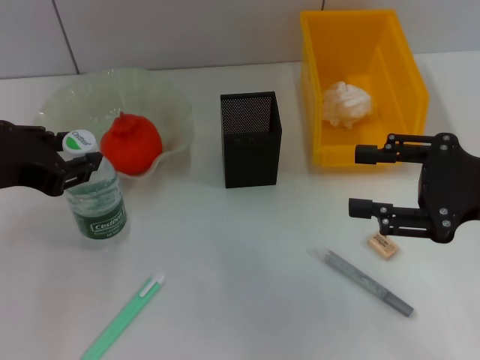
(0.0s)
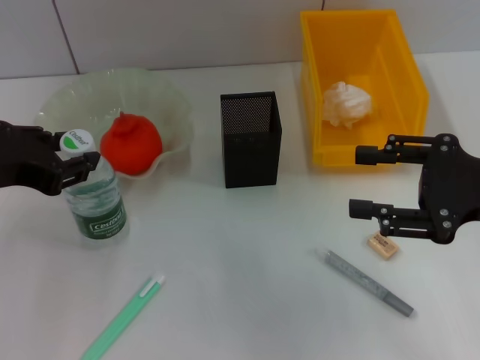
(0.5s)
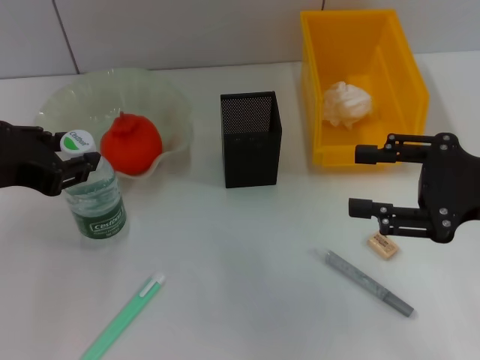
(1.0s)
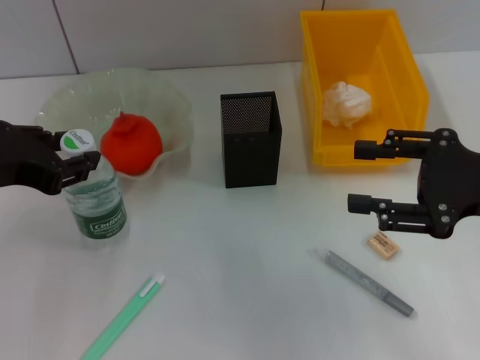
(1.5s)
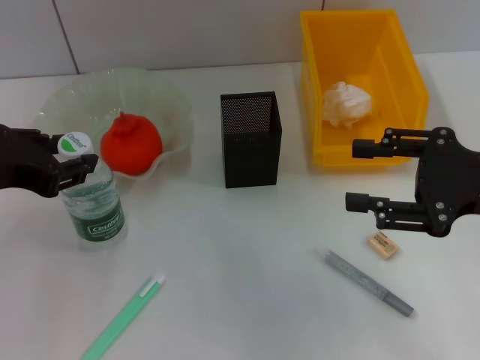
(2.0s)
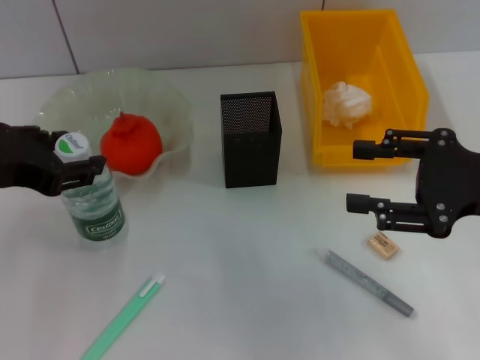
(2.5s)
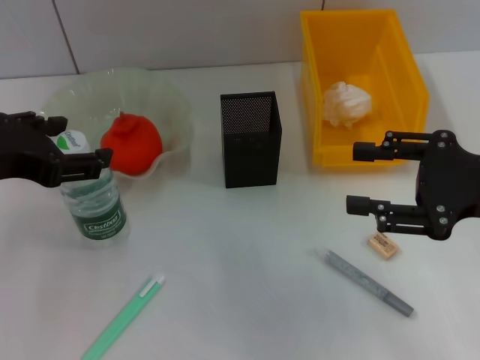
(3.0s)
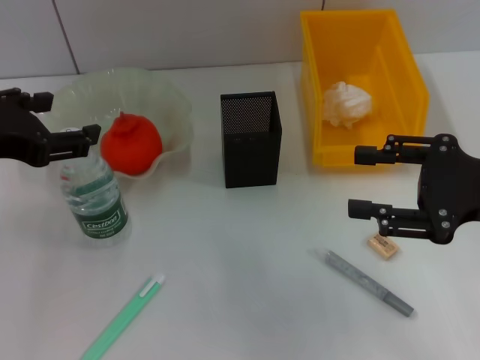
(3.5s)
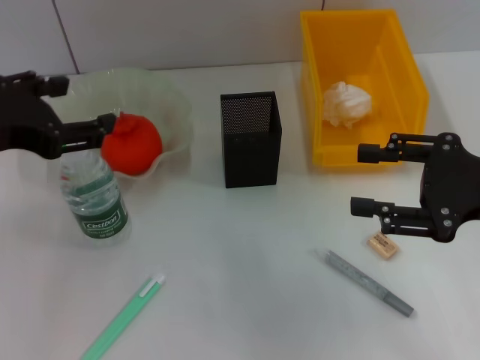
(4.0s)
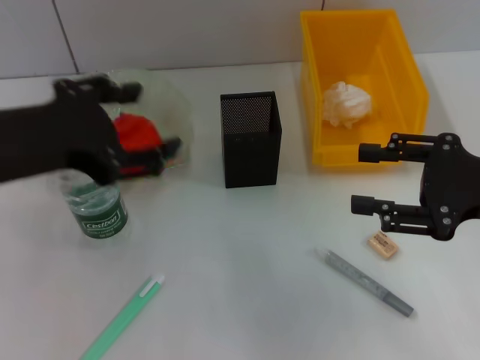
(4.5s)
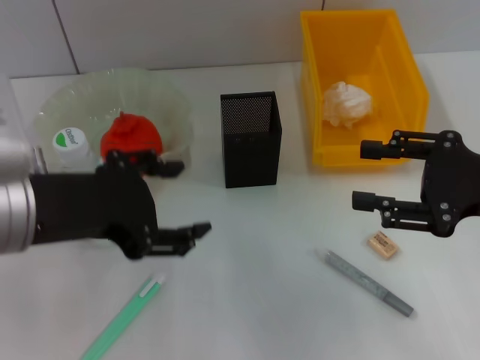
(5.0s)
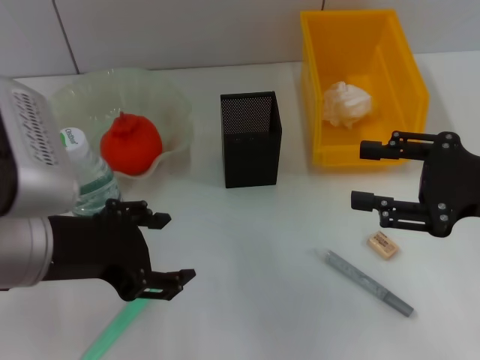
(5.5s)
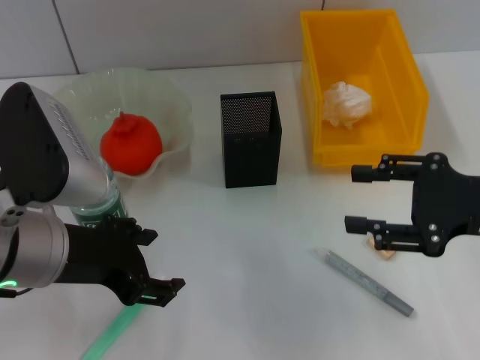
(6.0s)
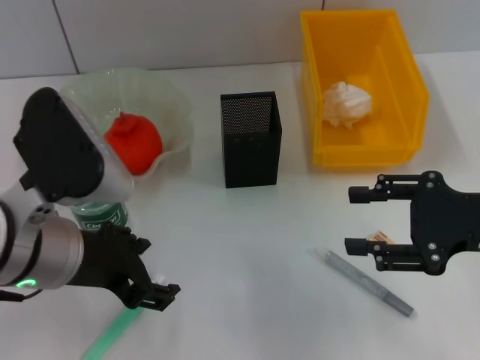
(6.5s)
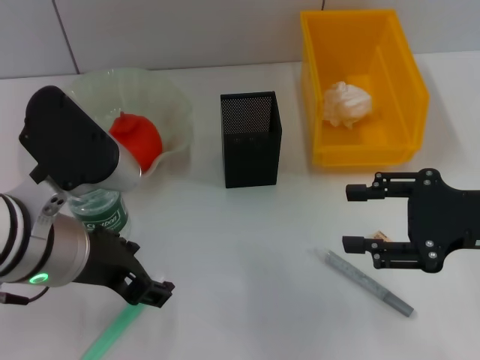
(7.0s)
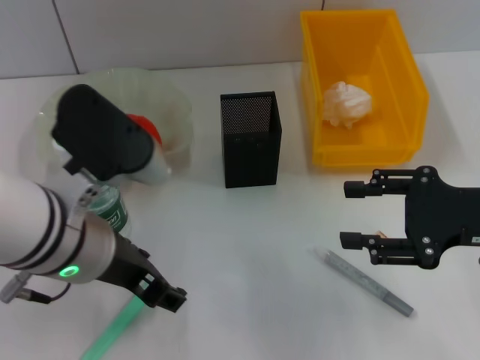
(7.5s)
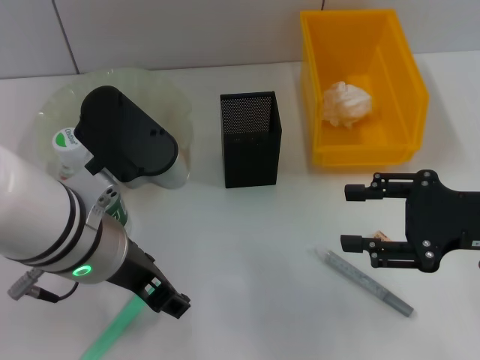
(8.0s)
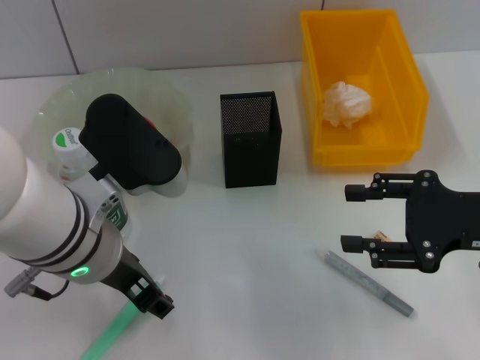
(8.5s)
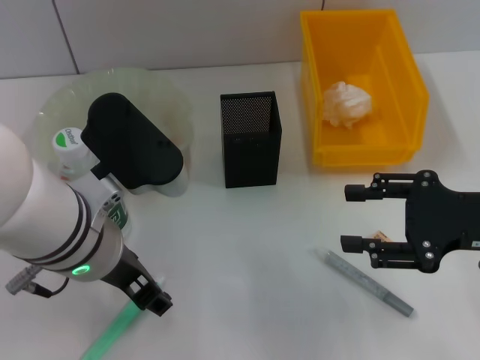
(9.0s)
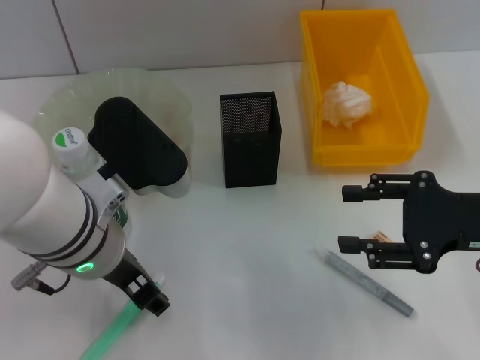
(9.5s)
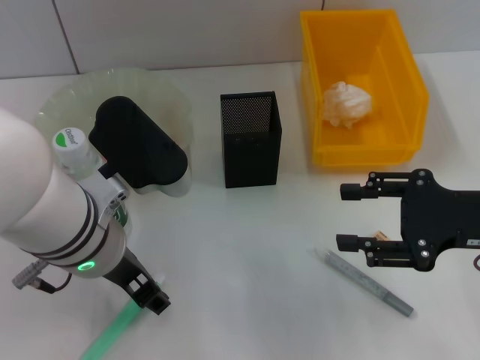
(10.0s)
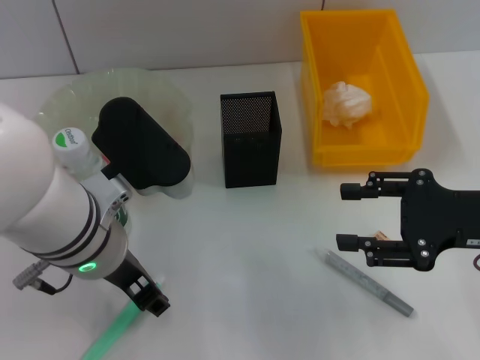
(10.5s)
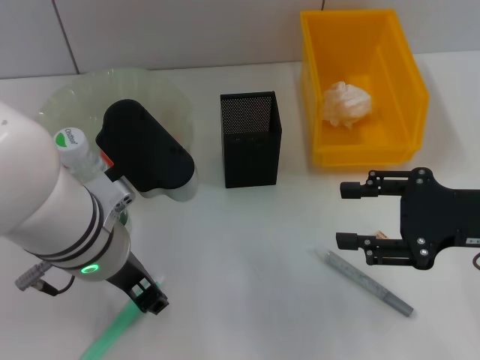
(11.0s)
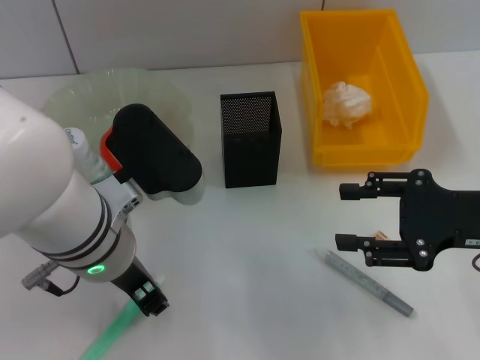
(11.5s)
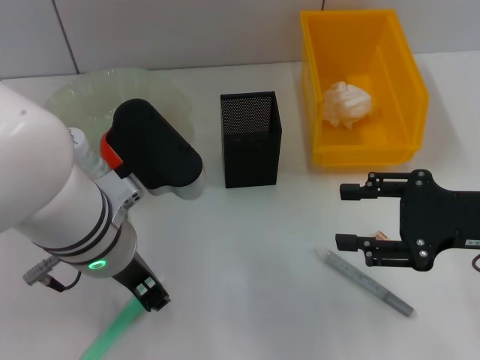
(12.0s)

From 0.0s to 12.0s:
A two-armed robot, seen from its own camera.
Step, from 0.0s to 2.5s: Place the water bottle on the table with the left hand.
From 0.0s to 2.0s: Both grippers stay about where they are.
From 2.0s to 4.0s: The left gripper opens.
From 4.0s to 6.0s: The left gripper goes some 10 cm to the right and downward.
From 6.0s to 8.0s: The left gripper goes roughly 5 cm to the right.
From 8.0s to 10.0s: The grippers stay close to where they were, moving slightly.
From 10.0s to 12.0s: The left gripper closes.

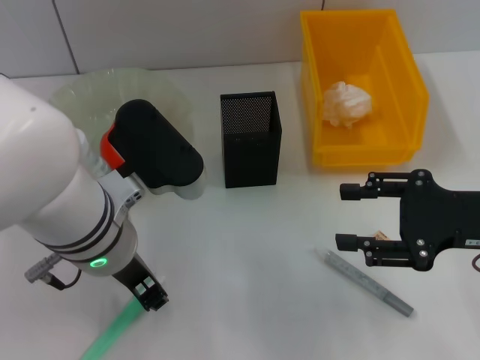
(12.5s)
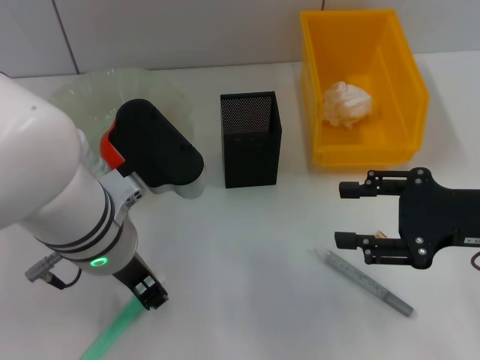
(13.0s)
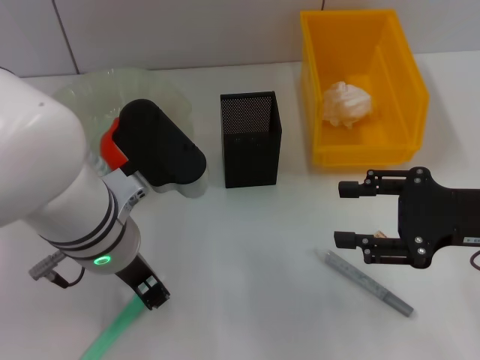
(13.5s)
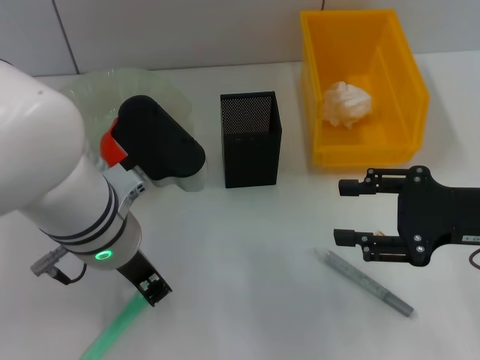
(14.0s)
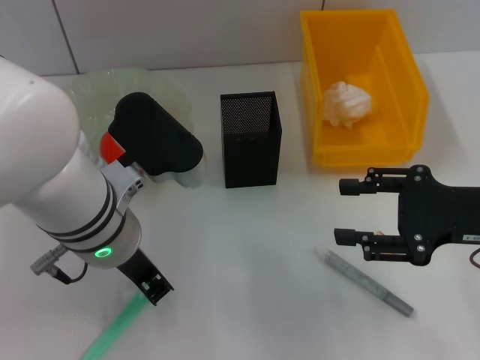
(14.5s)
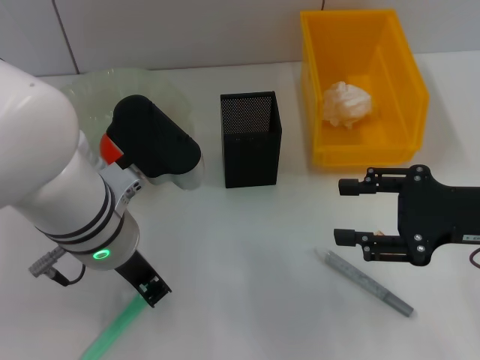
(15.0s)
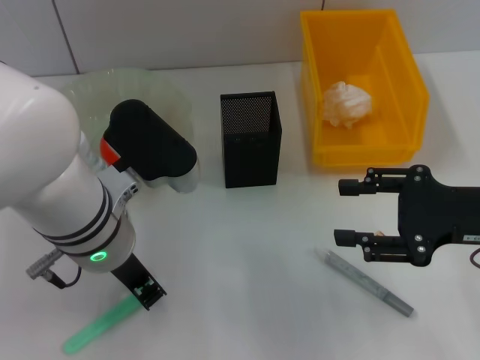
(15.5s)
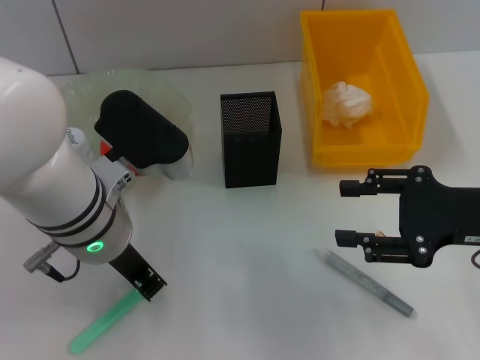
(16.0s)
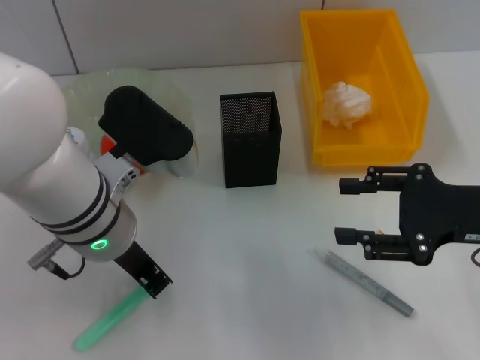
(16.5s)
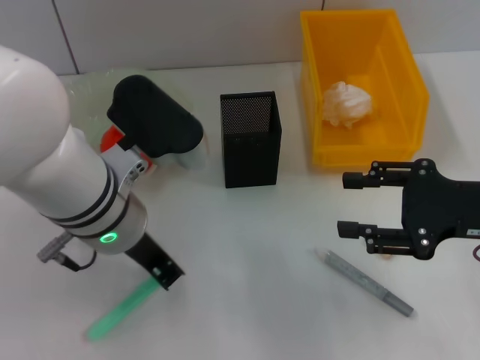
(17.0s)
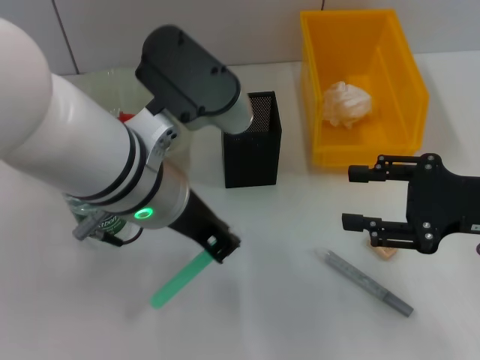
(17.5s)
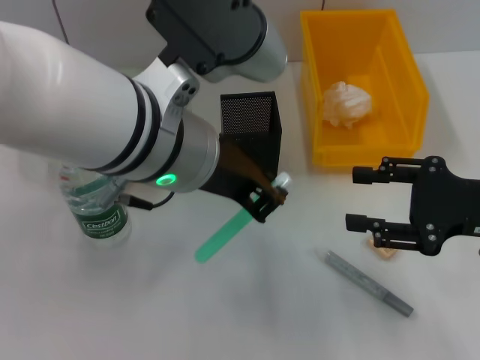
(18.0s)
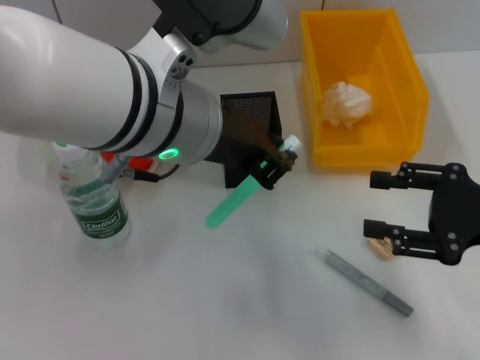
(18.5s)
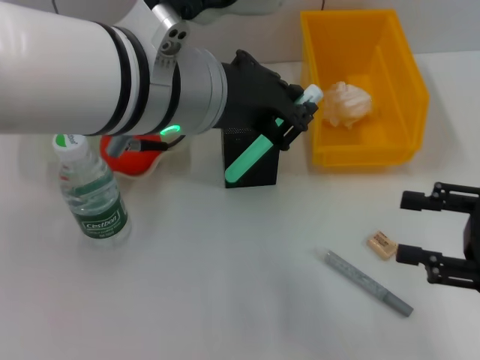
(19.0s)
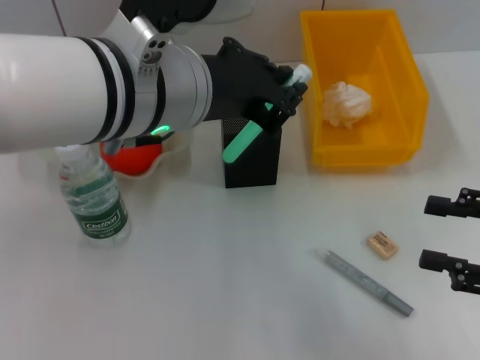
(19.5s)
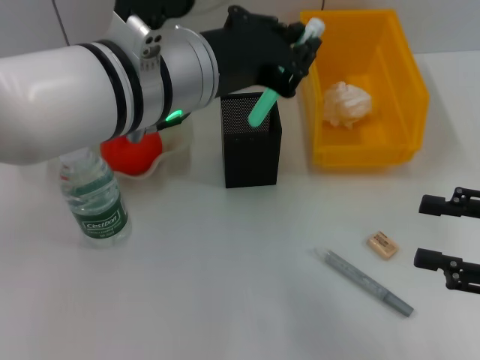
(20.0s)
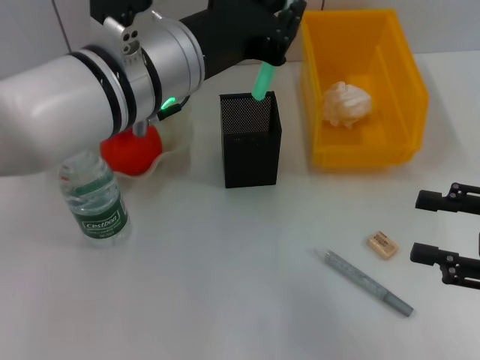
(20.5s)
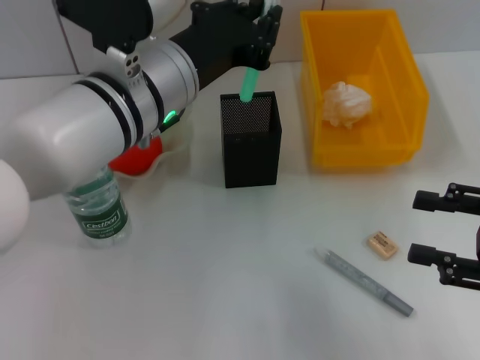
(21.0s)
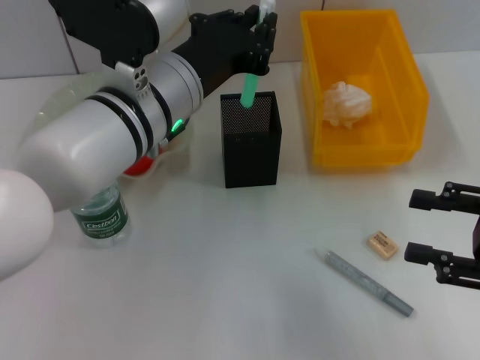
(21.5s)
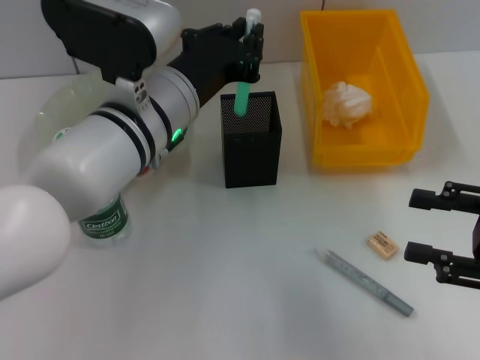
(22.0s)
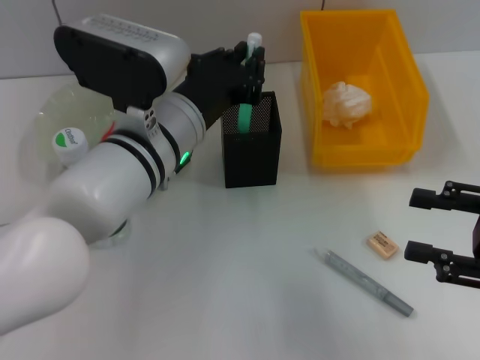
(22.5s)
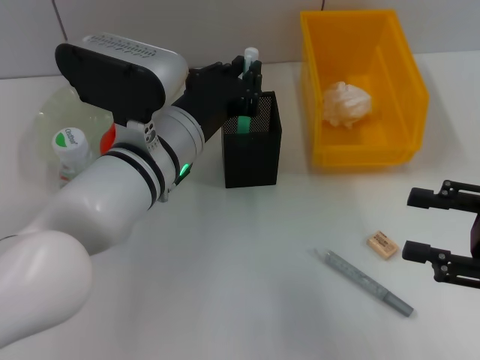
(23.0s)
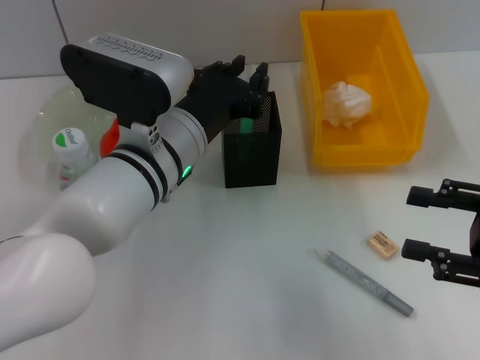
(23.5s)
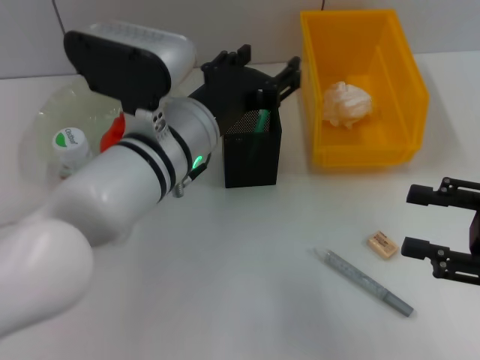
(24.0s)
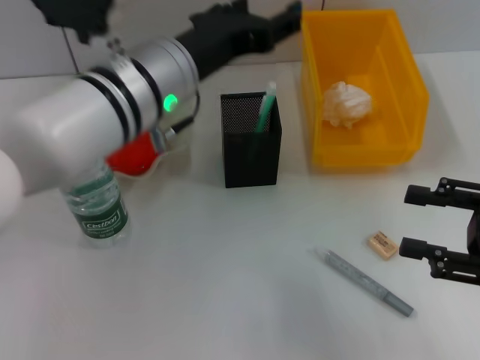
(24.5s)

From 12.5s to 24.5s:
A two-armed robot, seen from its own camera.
Step, from 12.5s to 15.5s: Grab the blue utility knife with the left hand.
Step, from 16.0s to 23.5s: Place the blue utility knife into the pen holder with the left hand.
From 12.5s to 14.5s: The left gripper closes its fingers.
From 14.5s to 16.5s: The two grippers keep their place.
From 16.5s to 18.5s: The left gripper is displaced upward and to the right by about 10 cm.
From 20.5s to 22.5s: The left gripper is displaced downward by roughly 10 cm.
From 22.5s to 24.5s: The left gripper travels upward by approximately 5 cm, and opens its fingers.

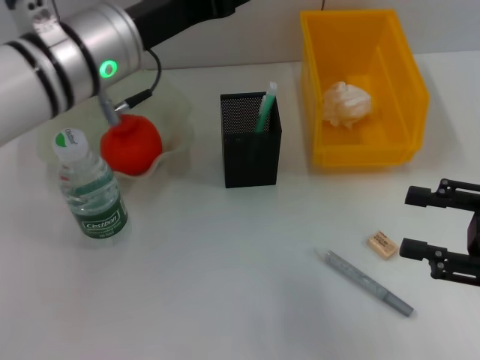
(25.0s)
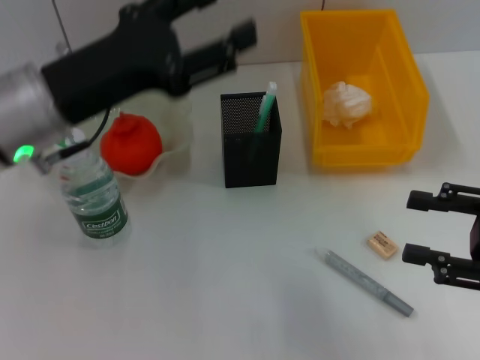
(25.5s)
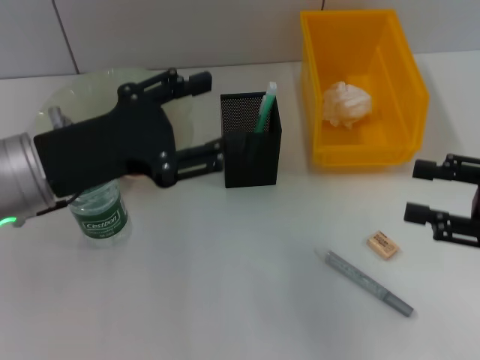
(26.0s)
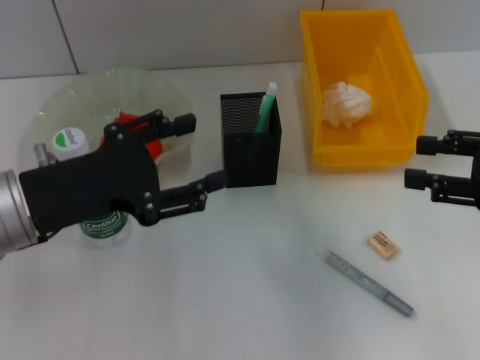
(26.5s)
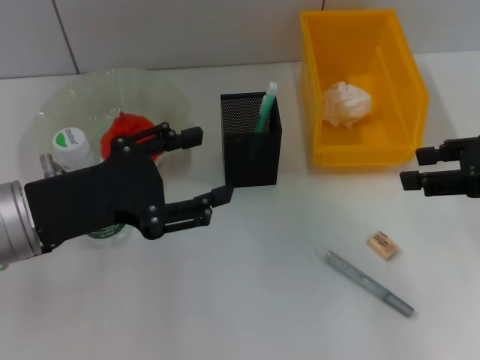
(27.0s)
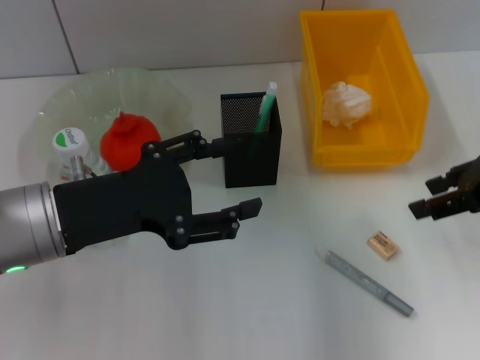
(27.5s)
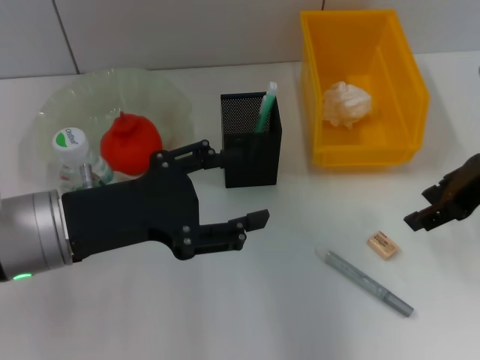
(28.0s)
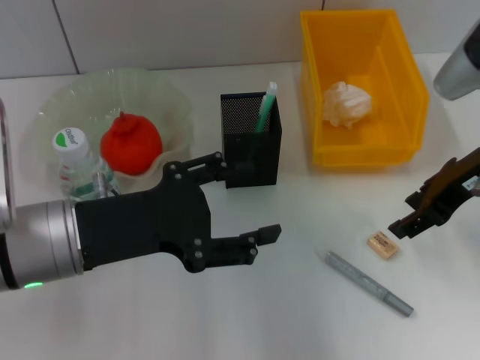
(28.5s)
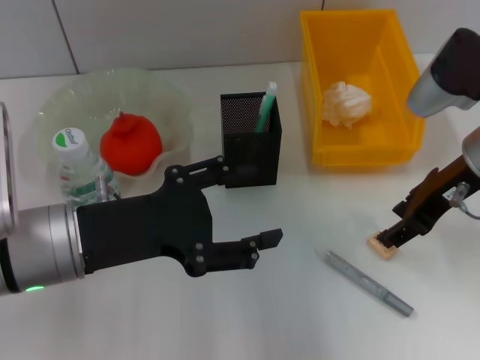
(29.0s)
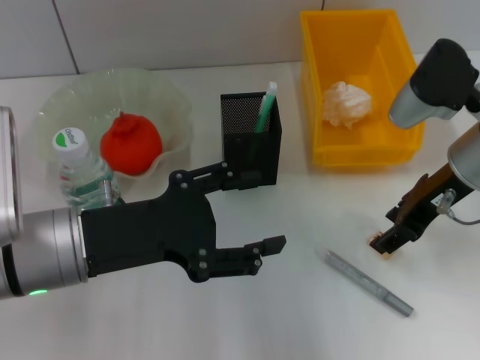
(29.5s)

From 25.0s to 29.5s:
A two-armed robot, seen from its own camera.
From 25.0s to 27.0s: The left gripper heads backward, to the left and downward, covering roughly 15 cm, while the right gripper moves forward and upward, some 10 cm.
From 27.0s to 29.5s: The right gripper travels to the left and forward by roughly 10 cm.
